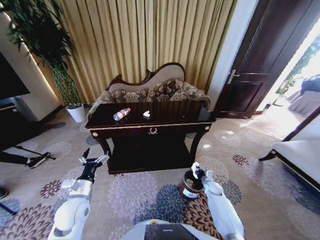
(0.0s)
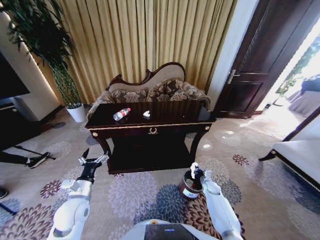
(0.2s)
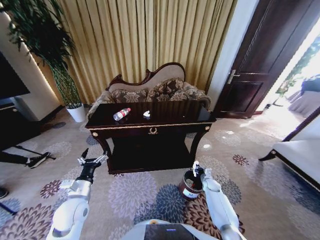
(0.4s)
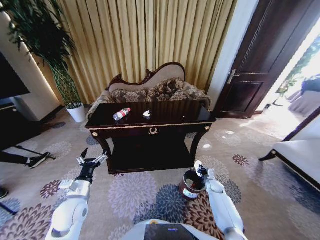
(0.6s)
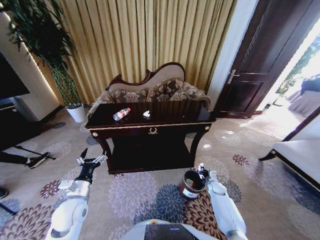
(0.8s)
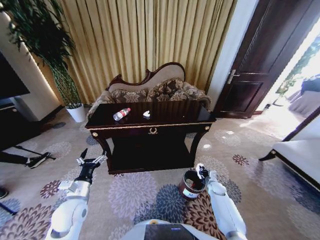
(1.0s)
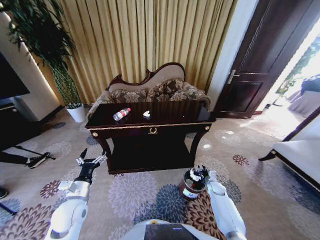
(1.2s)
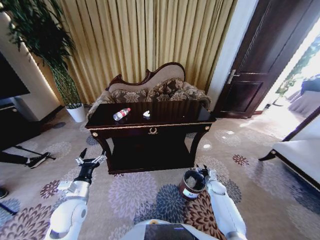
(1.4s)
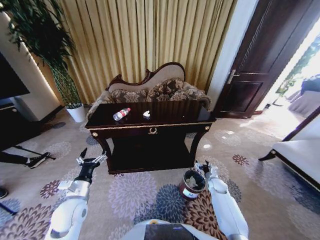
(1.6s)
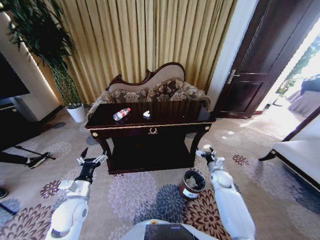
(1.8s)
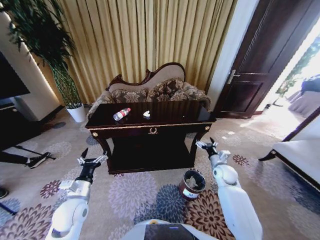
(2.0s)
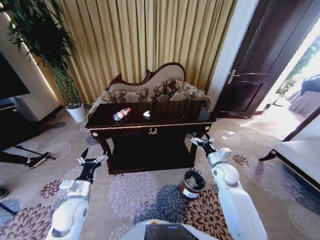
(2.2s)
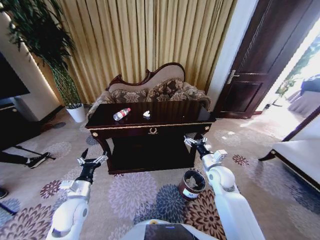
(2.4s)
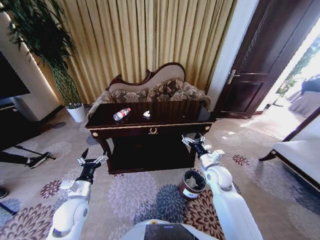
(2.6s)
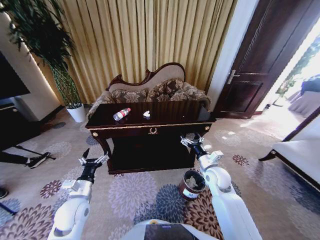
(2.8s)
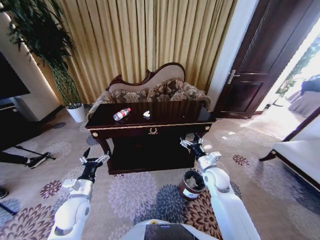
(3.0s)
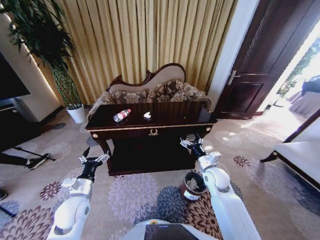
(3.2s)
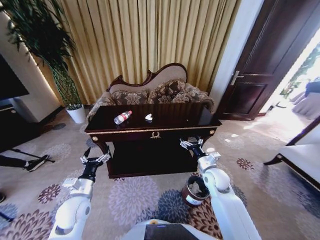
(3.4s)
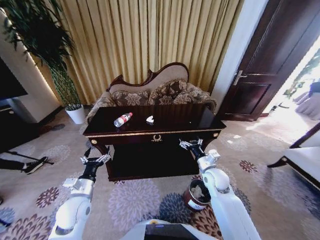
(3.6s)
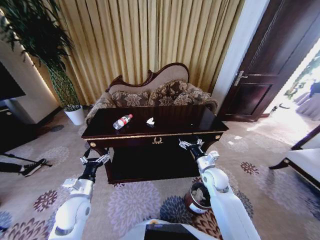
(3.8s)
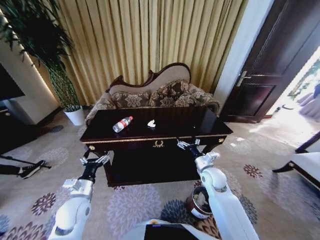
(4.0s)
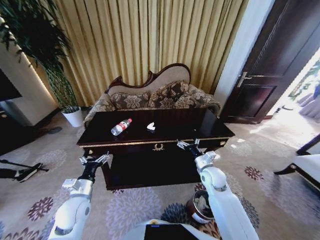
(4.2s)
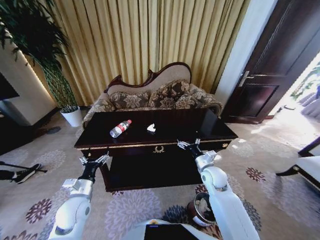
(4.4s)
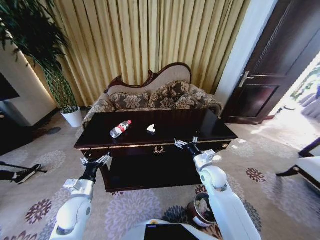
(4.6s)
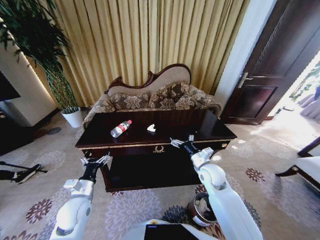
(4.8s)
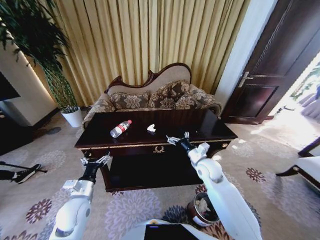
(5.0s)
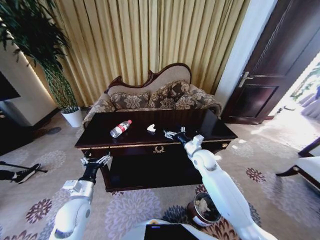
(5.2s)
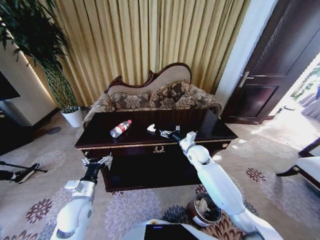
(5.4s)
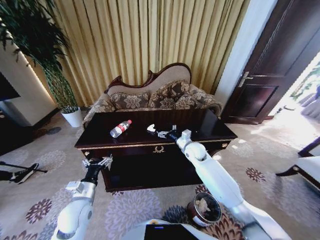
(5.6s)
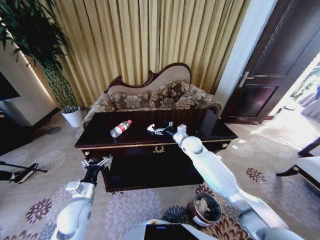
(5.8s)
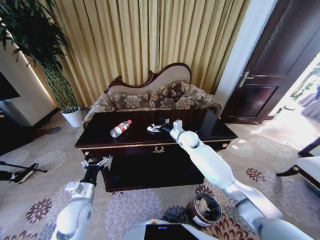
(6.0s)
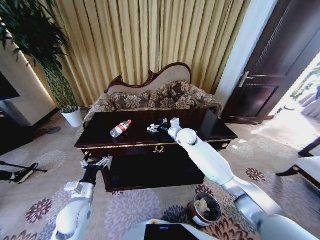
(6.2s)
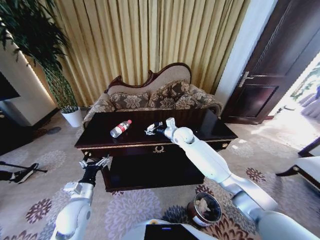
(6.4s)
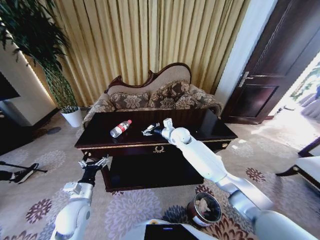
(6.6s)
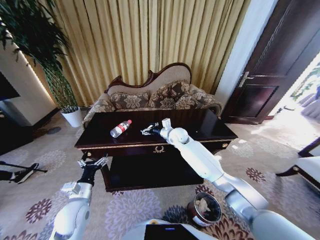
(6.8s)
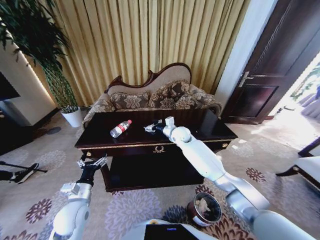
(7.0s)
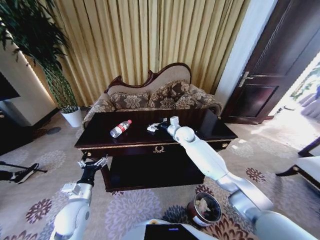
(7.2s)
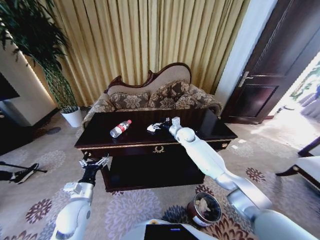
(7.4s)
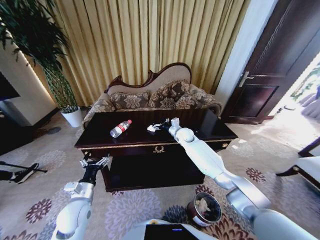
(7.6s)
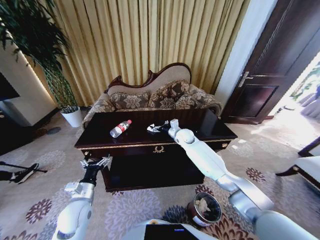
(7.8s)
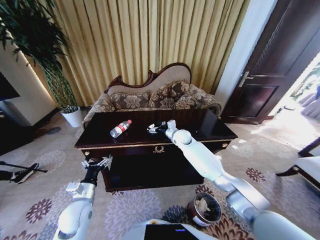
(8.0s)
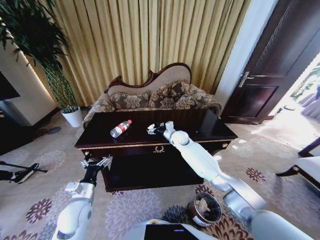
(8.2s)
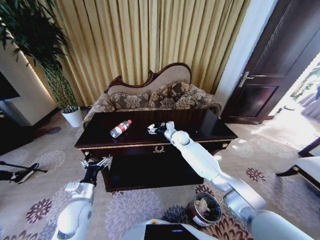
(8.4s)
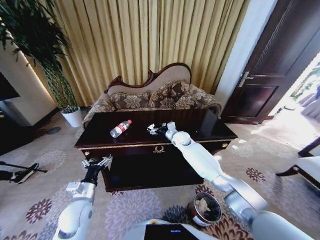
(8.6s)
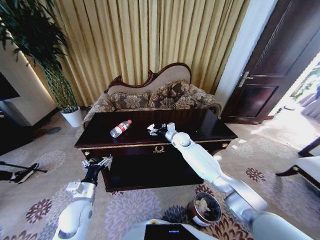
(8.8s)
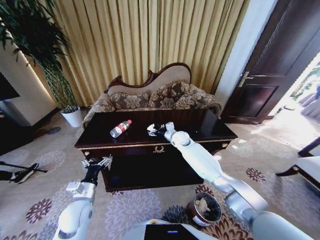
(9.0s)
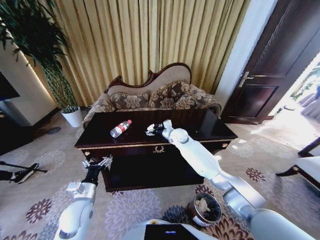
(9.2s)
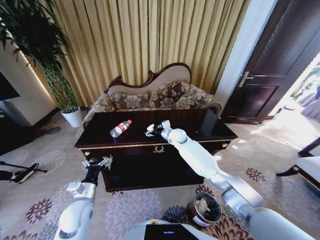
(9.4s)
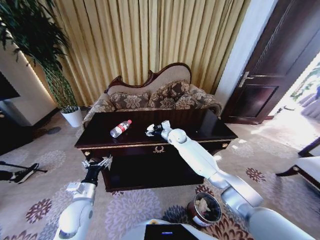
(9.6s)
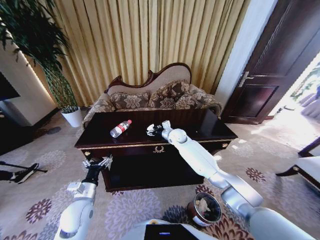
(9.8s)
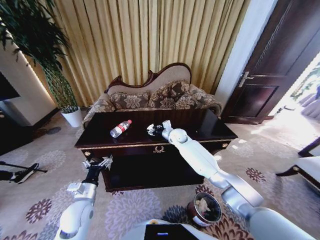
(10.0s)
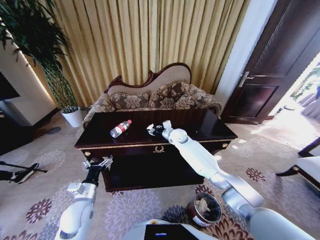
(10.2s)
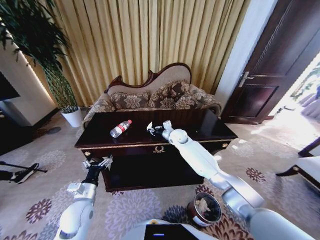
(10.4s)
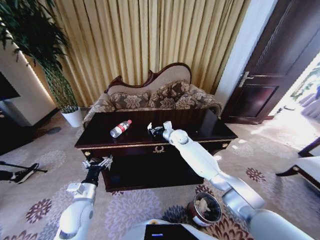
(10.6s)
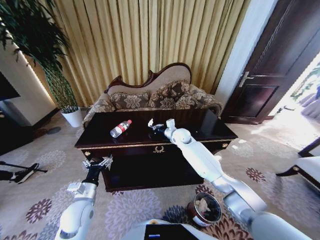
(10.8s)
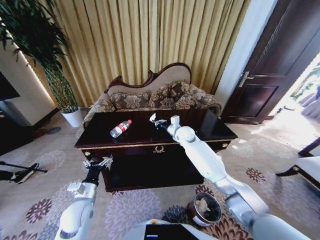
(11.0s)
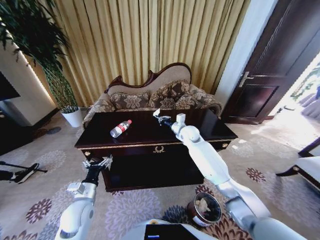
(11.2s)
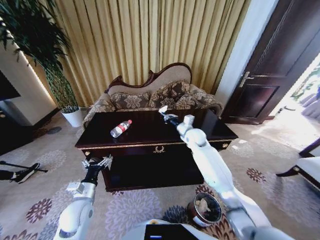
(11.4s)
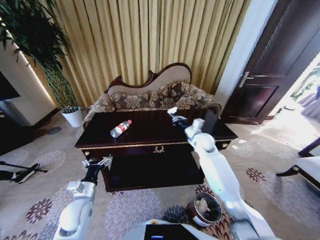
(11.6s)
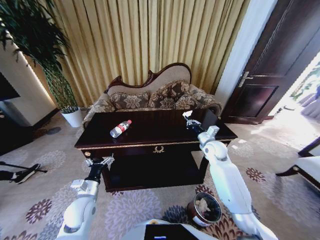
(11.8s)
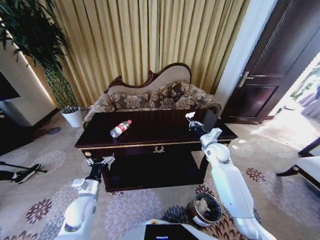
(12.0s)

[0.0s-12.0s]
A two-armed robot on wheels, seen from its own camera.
Task of the whole recording: Move to the front of the table and place the trash on the table into the trash bin.
0.0s to 1.6s: The right gripper opens its fingers.
1.6s to 3.0s: The right gripper goes about 20 cm upward and to the left.
4.4s to 6.0s: The right gripper heads forward and to the left, covering approximately 20 cm.
6.0s to 7.6s: The right gripper moves roughly 5 cm.
7.6s to 9.0s: The grippers move only a little.
9.0s to 10.4s: The right gripper closes.
10.4s to 12.0s: The right gripper moves to the right and backward, some 20 cm.

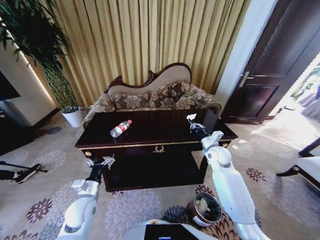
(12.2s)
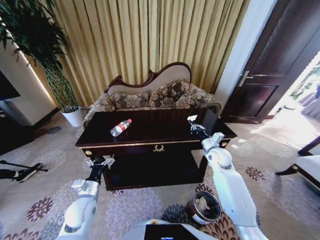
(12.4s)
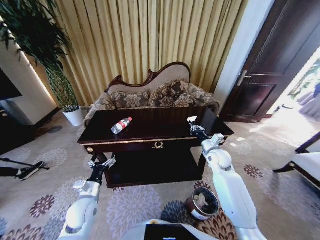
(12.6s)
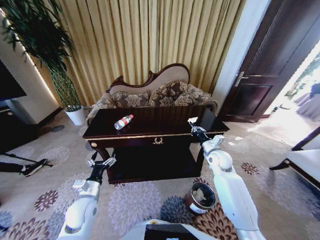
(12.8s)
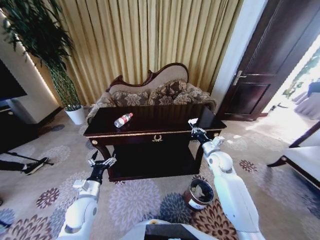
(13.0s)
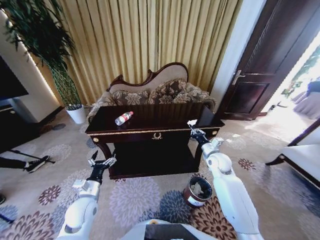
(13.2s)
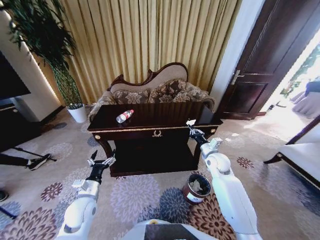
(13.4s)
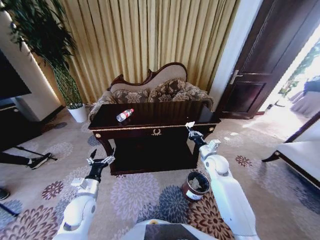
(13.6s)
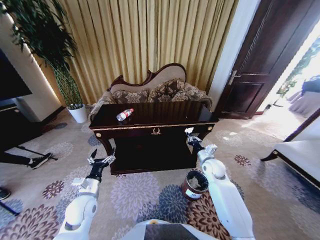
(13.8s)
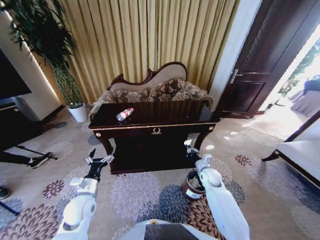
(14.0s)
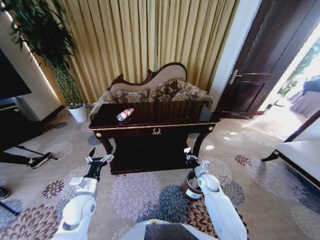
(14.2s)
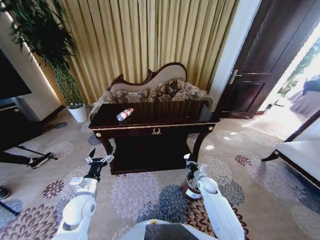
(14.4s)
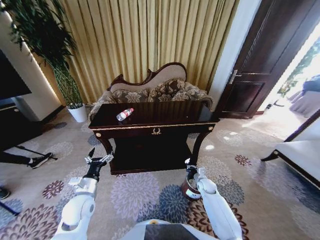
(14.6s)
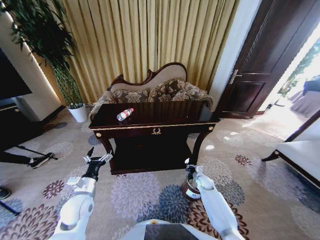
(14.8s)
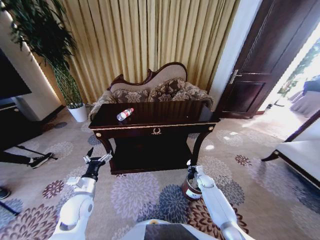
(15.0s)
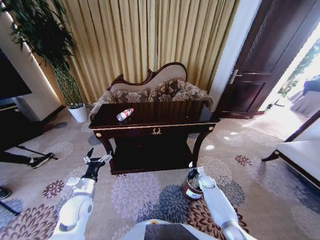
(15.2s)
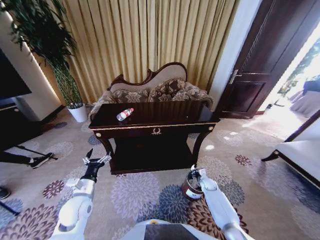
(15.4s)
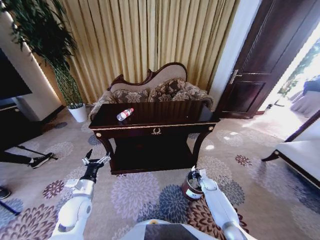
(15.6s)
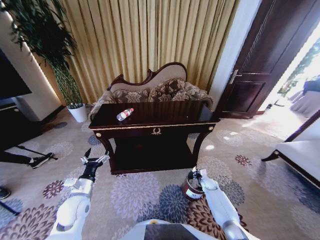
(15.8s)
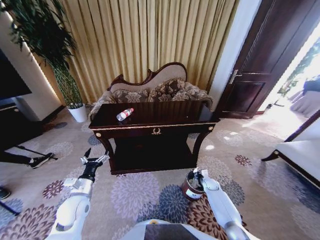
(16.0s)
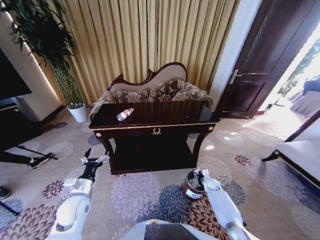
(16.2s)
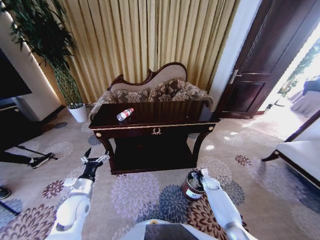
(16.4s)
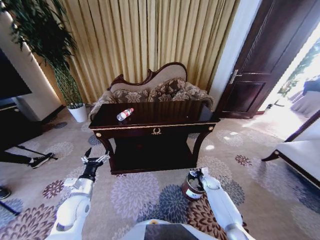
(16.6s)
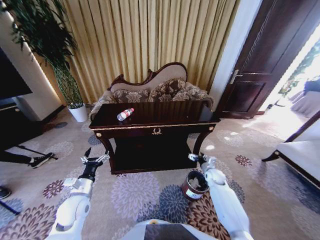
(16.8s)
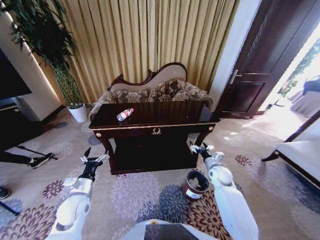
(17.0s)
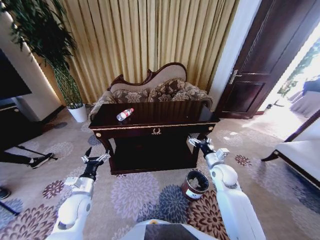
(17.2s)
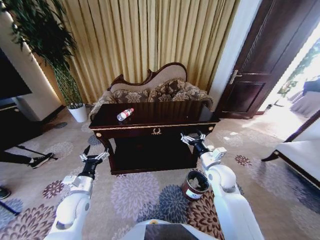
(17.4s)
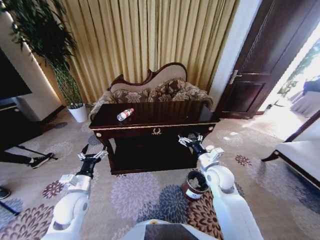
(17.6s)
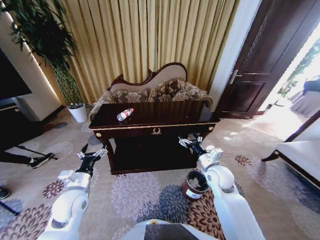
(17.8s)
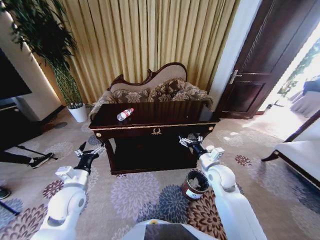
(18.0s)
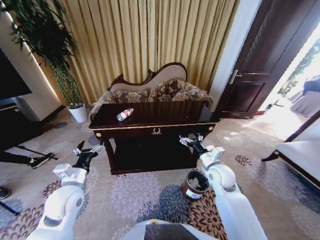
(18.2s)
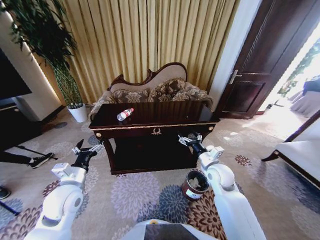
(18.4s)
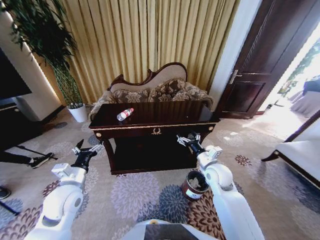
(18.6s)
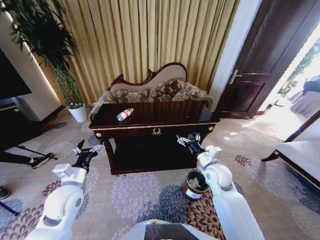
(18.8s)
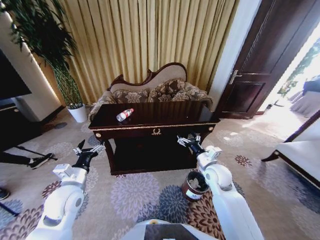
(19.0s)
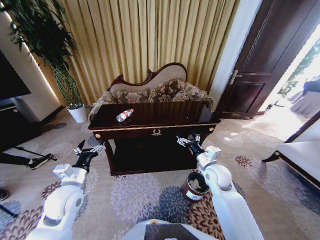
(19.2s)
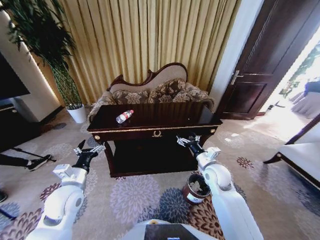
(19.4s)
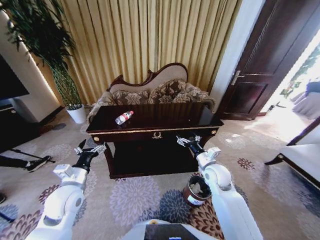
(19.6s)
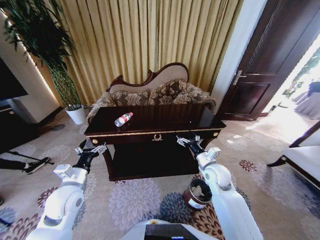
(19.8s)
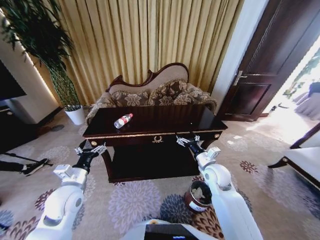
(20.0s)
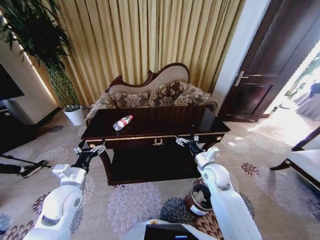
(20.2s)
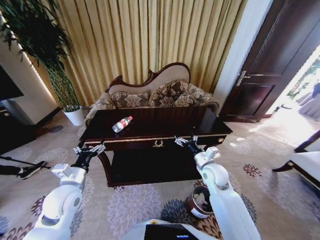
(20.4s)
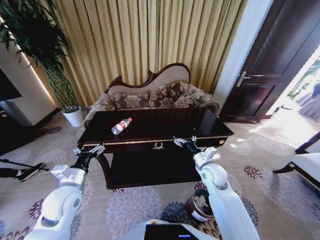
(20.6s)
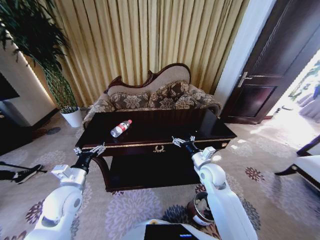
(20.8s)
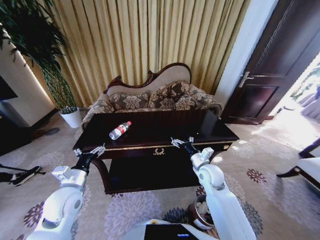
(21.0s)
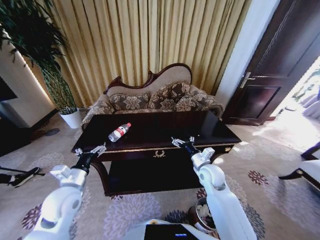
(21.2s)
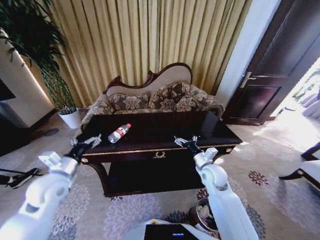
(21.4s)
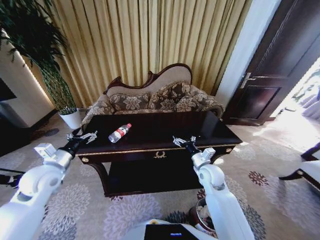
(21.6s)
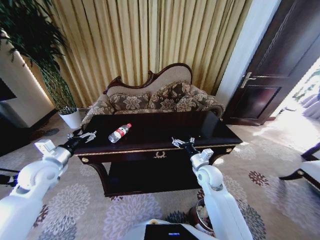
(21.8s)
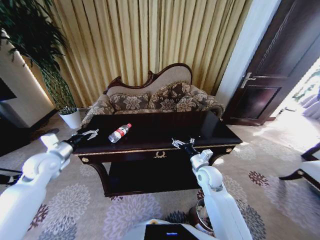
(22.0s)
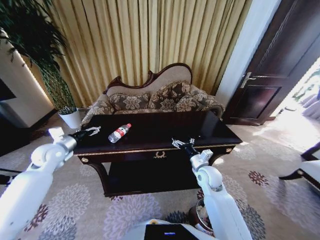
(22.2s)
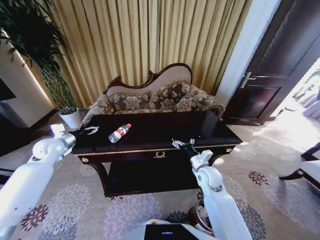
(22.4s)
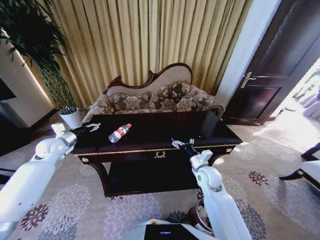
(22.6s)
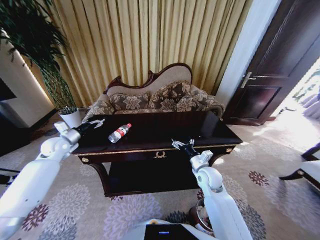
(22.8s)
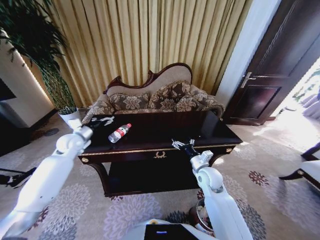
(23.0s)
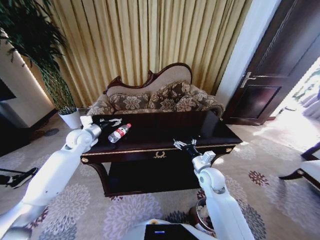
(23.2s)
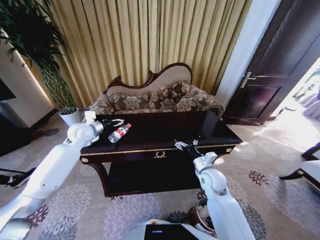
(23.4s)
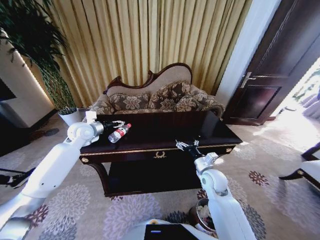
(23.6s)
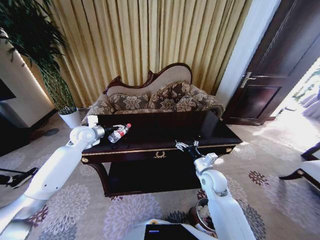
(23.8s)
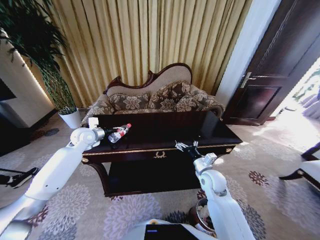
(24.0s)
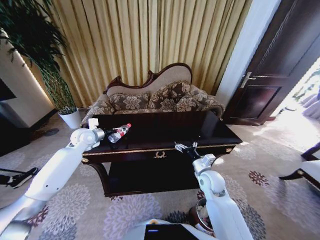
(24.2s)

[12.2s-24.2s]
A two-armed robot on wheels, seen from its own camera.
Task of the whole recording: Move to the front of the table and place the trash on the table into the trash bin.
12.2s to 13.8s: The right gripper goes some 10 cm downward.
13.8s to 15.2s: The right gripper is displaced downward by some 20 cm.
15.2s to 16.6s: The right gripper opens up.
16.6s to 18.2s: The left gripper is displaced upward by roughly 10 cm. Meanwhile the right gripper goes some 25 cm upward.
21.2s to 22.6s: The left gripper shifts some 25 cm forward and to the left.
22.6s to 24.2s: The left gripper heads to the right, covering about 15 cm.
